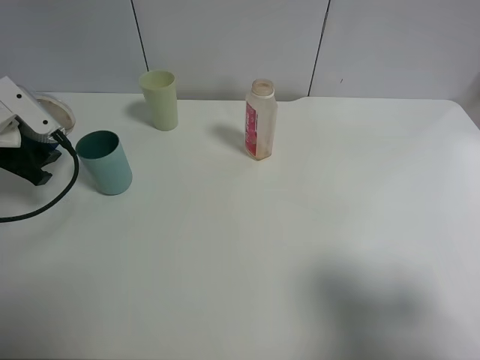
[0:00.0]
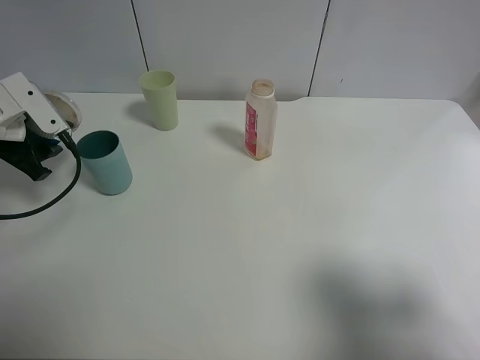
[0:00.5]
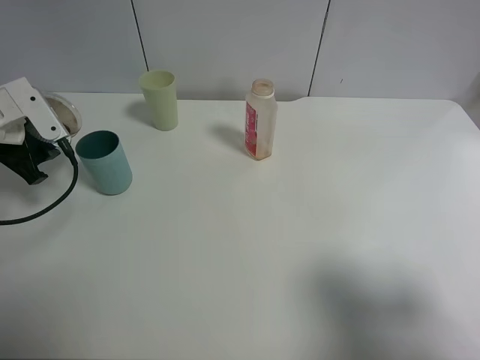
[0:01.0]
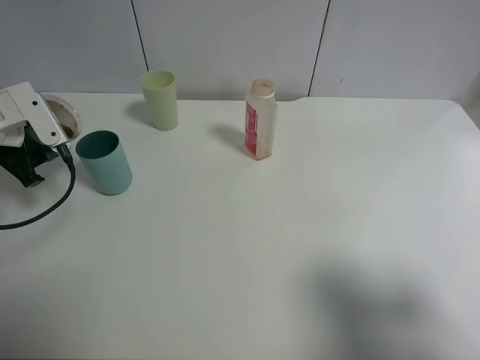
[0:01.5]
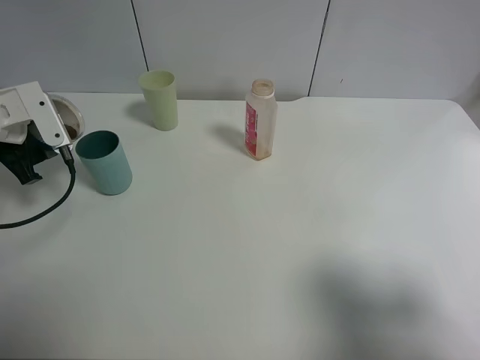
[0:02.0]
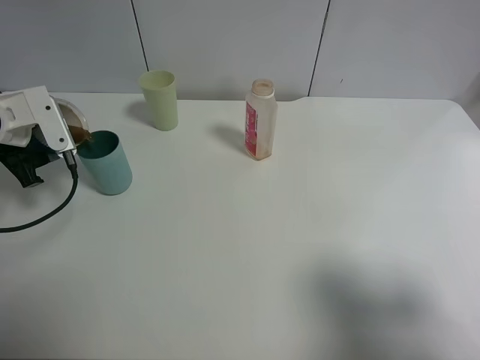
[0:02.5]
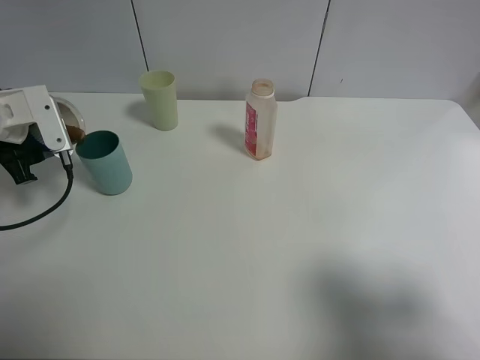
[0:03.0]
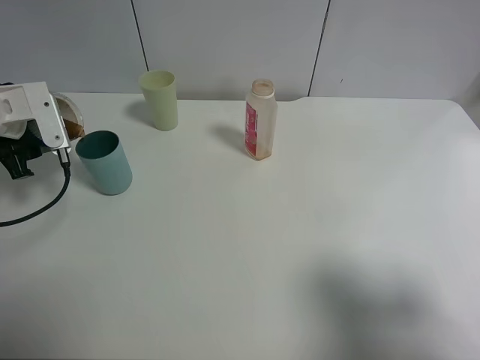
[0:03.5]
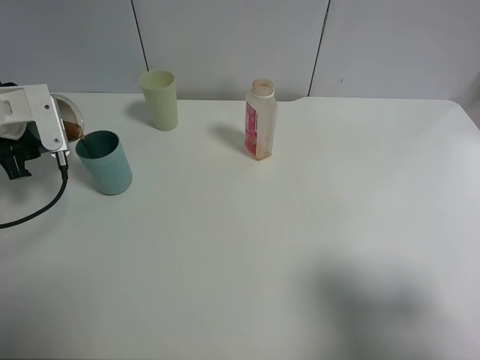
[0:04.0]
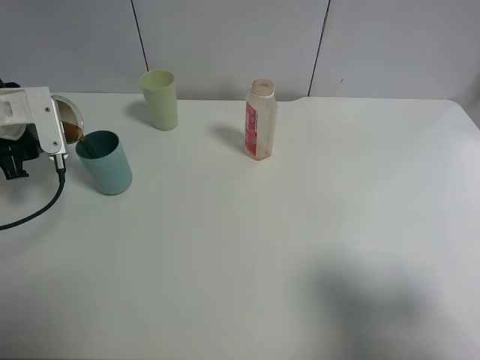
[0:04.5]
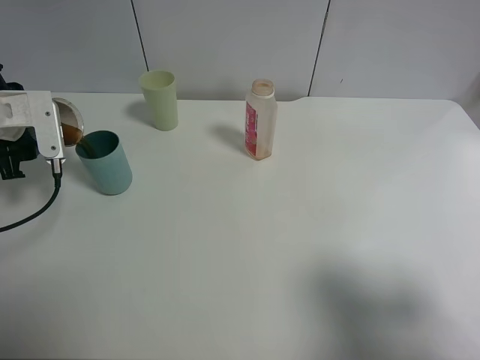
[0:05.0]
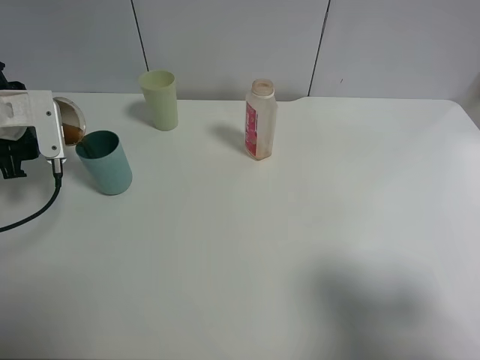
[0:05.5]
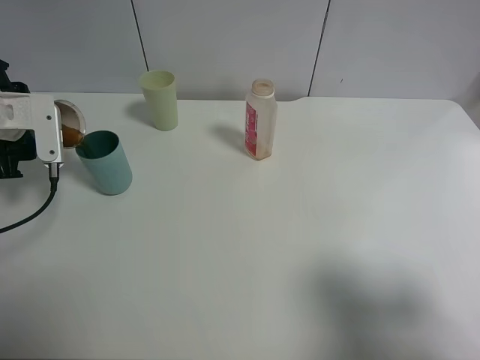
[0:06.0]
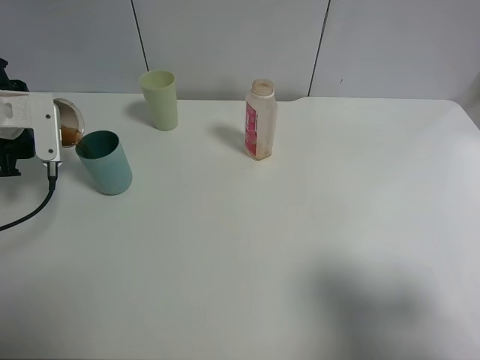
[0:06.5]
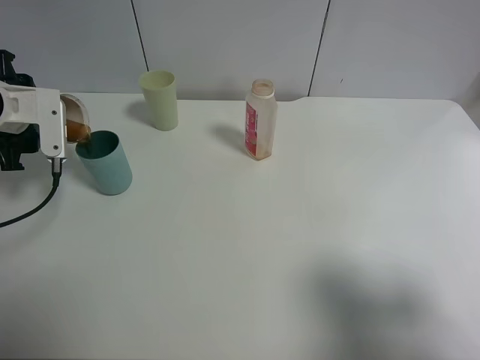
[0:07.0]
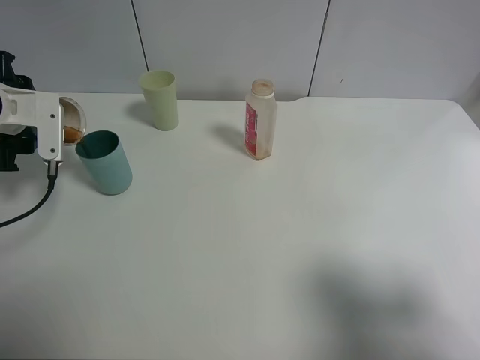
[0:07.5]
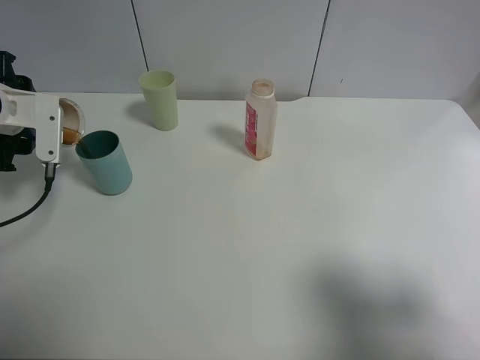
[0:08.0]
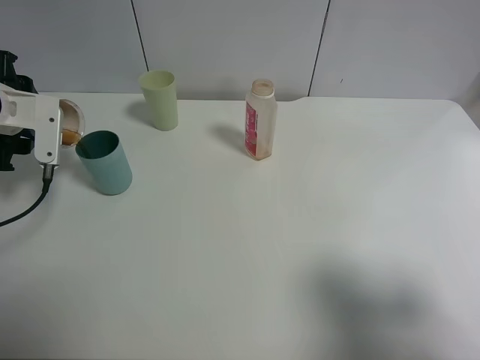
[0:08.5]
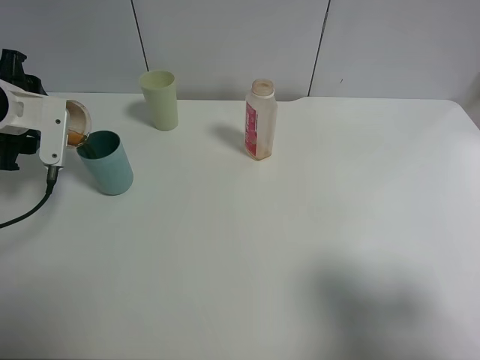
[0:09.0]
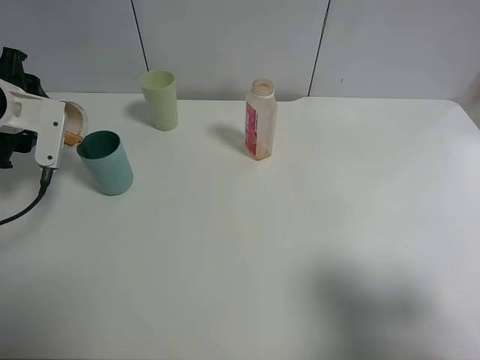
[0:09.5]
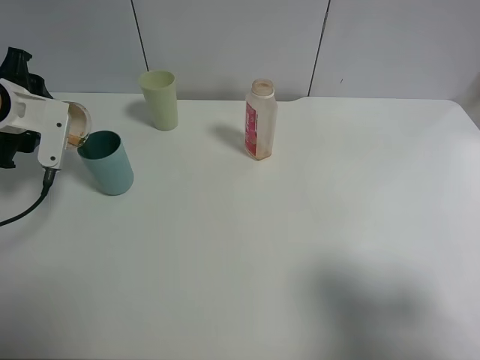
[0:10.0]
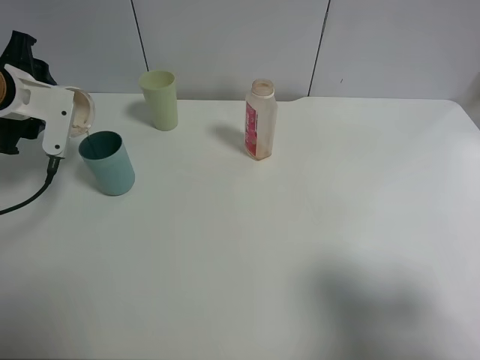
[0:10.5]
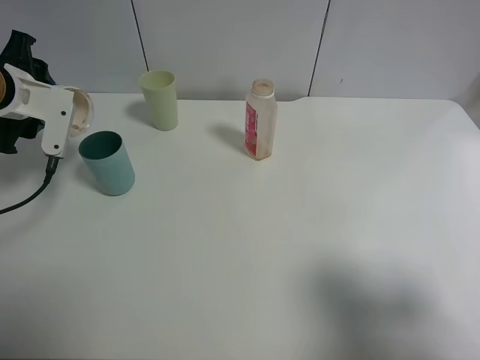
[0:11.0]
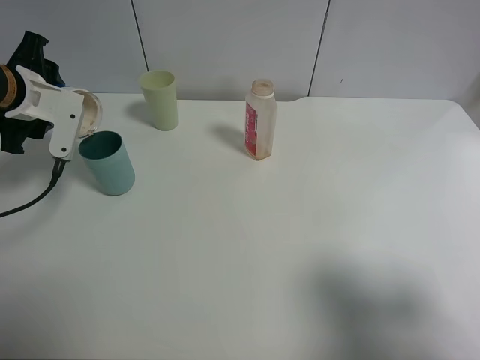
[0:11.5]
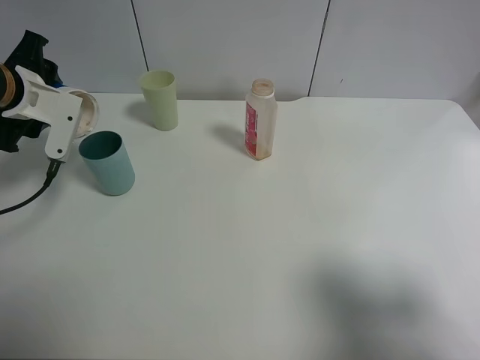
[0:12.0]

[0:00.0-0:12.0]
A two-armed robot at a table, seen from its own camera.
Task of the whole recording: use a clamp to hold the bottle of the drink, pour the beverage into a random cup, then clamp the cup containing the drink and pour the drink into another random cup.
0:02.0 to 0:04.0: The grippers move only a little.
0:04.0 to 0:08.0: The grippers stay close to where they were, moving slightly.
0:08.0 to 0:12.0: The grippers make only small movements.

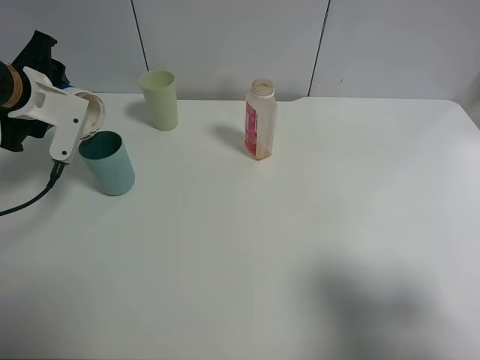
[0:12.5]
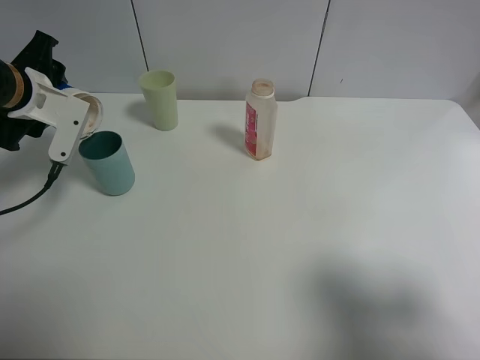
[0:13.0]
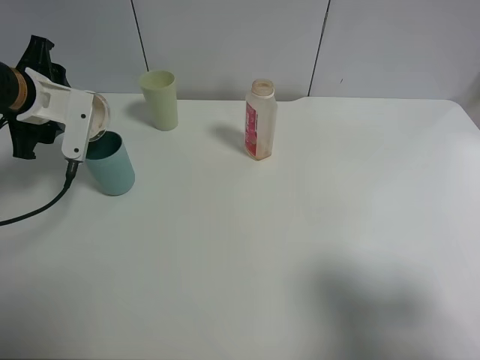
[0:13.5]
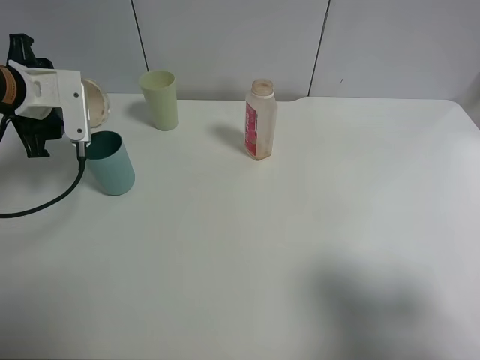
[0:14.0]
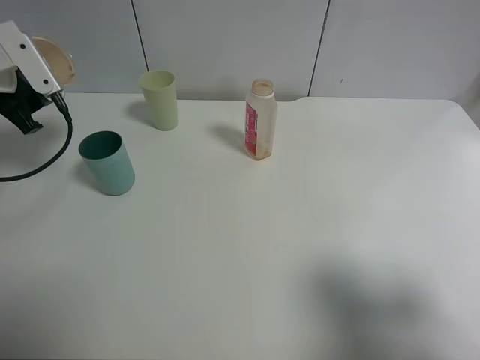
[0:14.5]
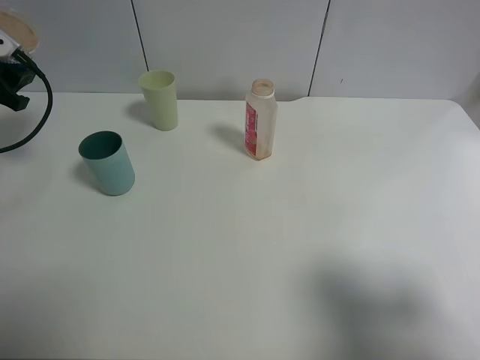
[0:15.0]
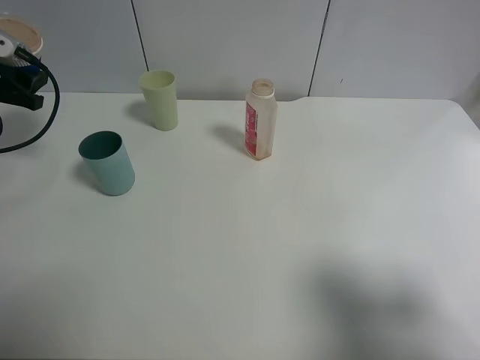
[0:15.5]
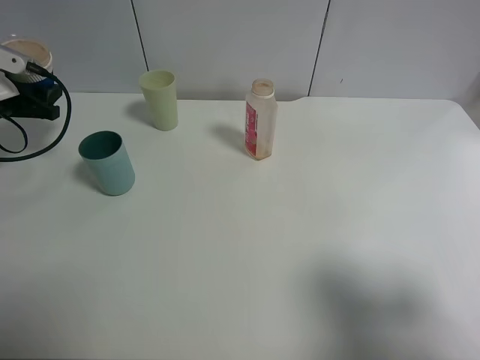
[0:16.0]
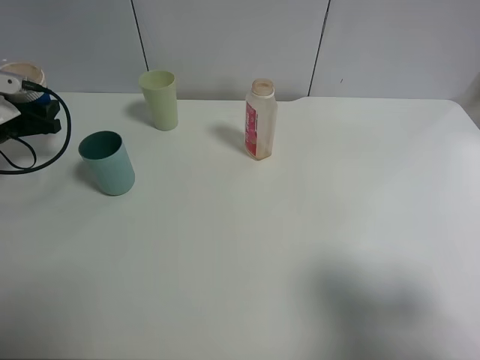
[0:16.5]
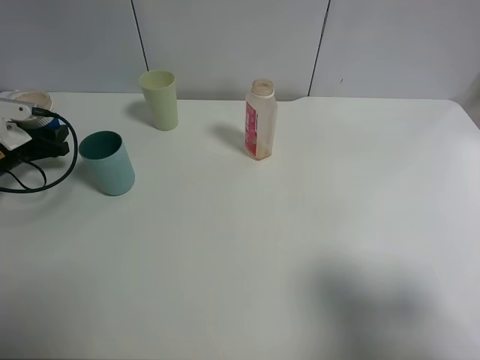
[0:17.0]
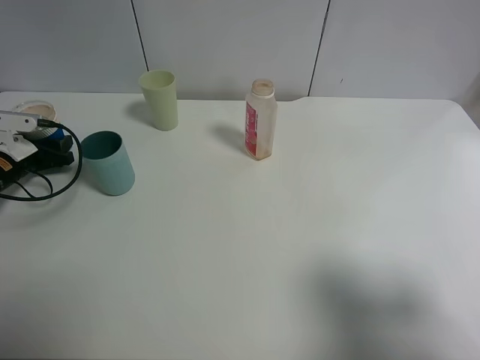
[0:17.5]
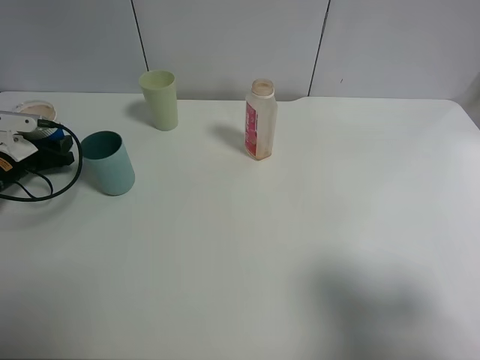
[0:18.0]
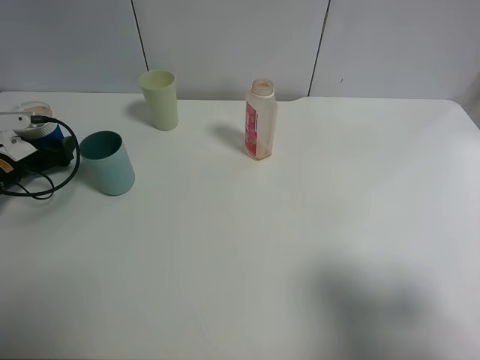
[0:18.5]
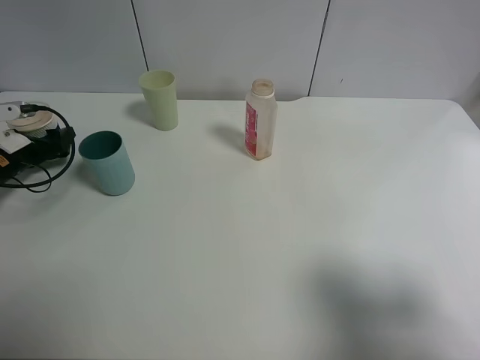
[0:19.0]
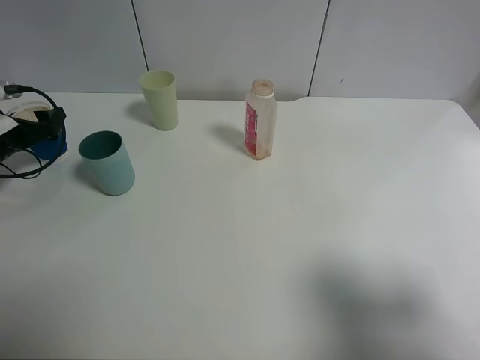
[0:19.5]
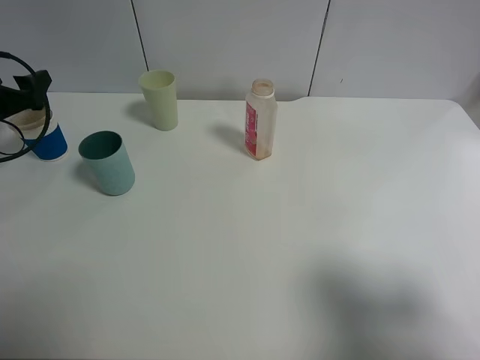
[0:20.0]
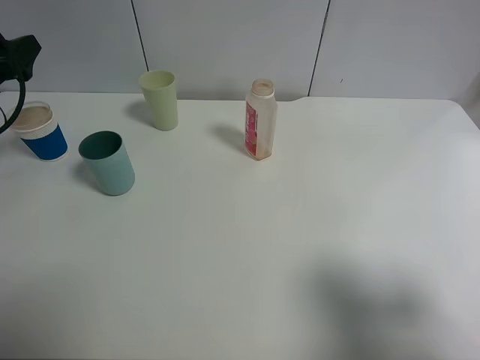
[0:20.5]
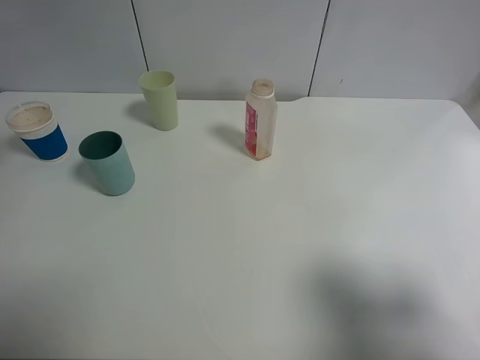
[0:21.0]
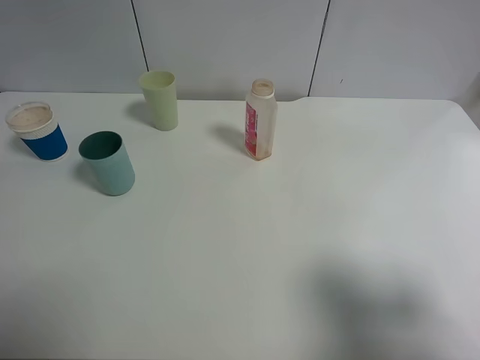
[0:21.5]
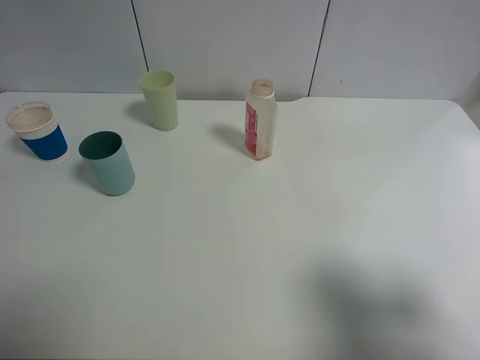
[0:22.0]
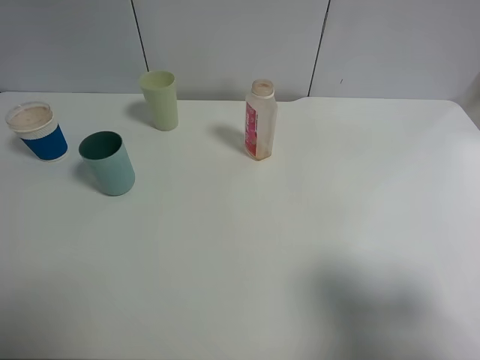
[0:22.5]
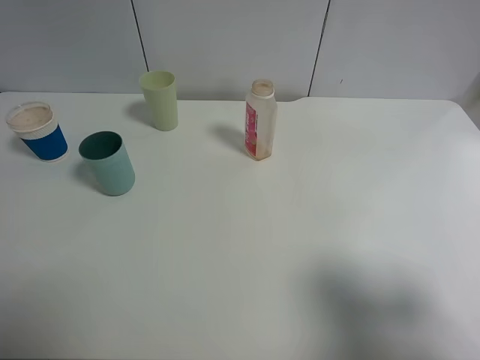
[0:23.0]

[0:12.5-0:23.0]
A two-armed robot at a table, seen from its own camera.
Task of the whole recording: use a clamp to hold the bottle of the drink, pour the beverage into a random cup, then clamp the cup containing the drink and pour the drink into another random cup.
Step, 0:14.5 to 0:19.5: Place the paper cup on the table with left gripper.
0:12.5 to 0:14.5: The left gripper is displaced to the left by some 5 cm.
0:14.5 to 0:16.5: The left gripper goes roughly 15 cm downward and to the left.
0:16.5 to 0:19.0: The left gripper is displaced downward by about 5 cm, and opens its fingers.
0:19.0 to 0:21.0: The left gripper shifts about 20 cm upward and backward.

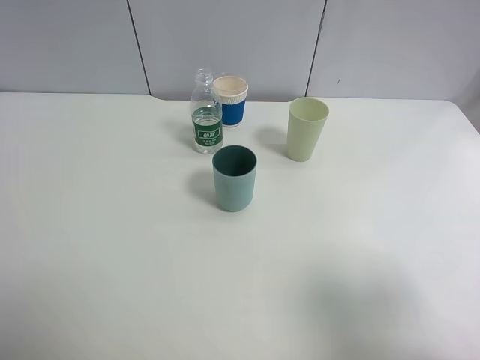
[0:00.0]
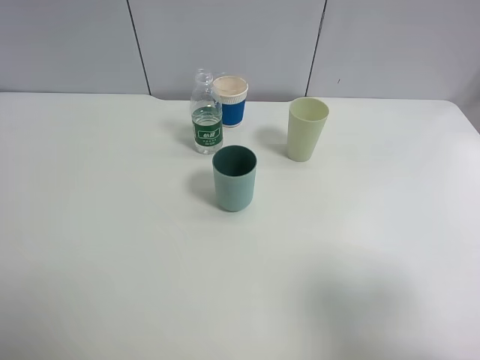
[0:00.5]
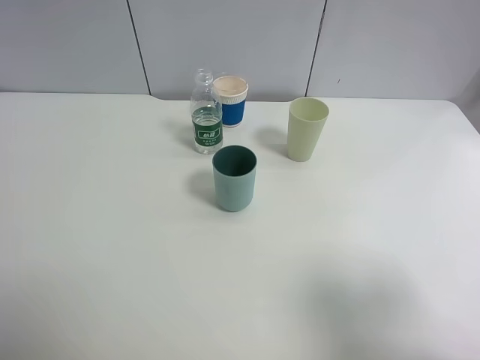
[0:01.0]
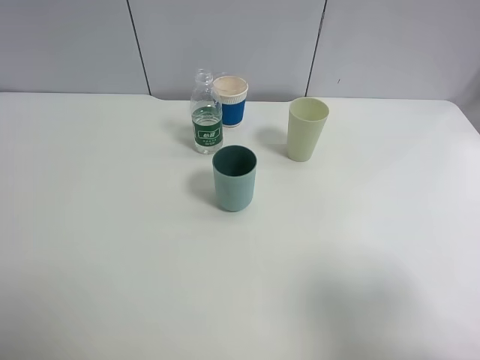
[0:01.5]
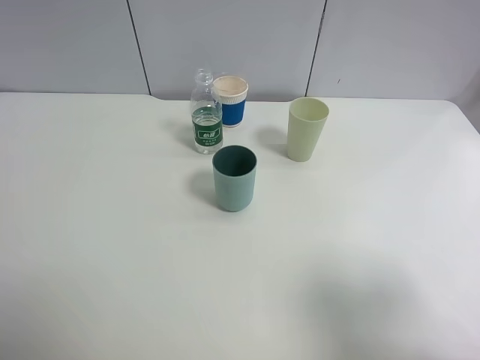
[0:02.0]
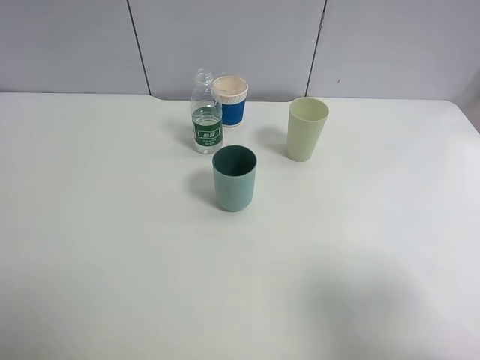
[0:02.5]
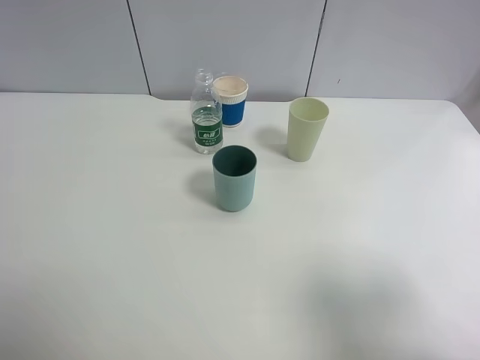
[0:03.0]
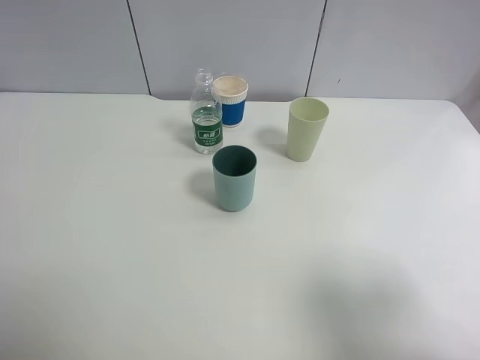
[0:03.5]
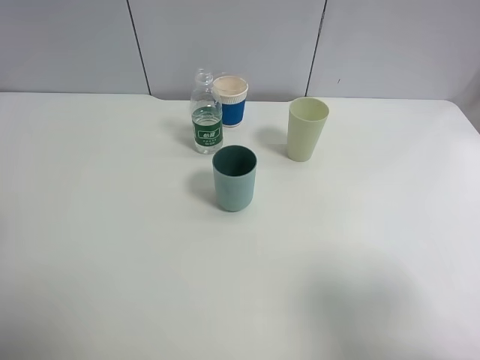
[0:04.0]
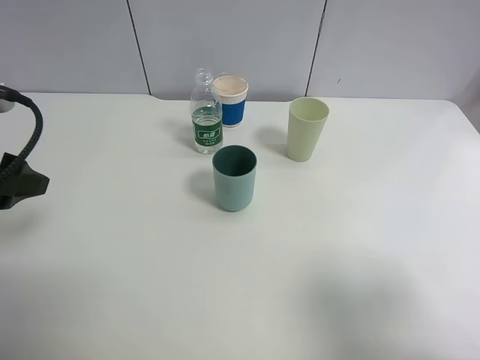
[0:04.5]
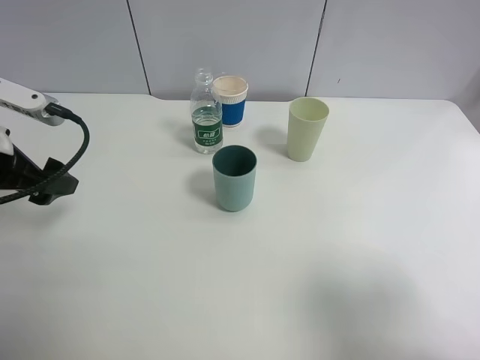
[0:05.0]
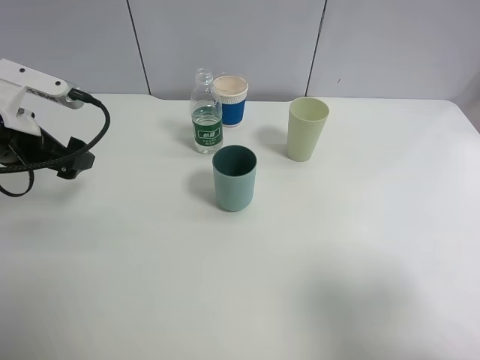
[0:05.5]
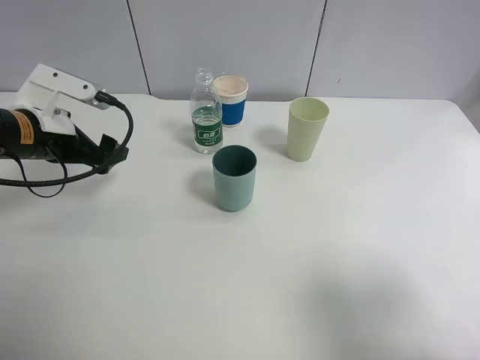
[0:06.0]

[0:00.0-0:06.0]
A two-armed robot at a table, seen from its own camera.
Task of the whole recording: use a clamp to hold the bottle of the drink, pour the beverage into a random cup, then clamp the cup containing the drink and pour the drink into another random cup.
0:00.0 to 0:02.0: The two grippers keep their place.
0:04.0 to 0:06.0: The left gripper moves forward and downward, approximately 20 cm.
